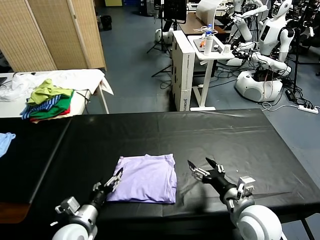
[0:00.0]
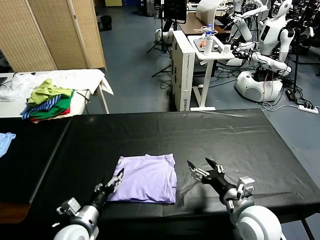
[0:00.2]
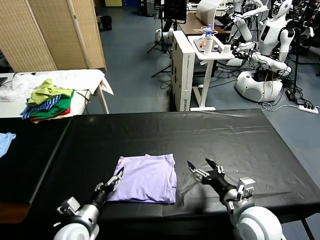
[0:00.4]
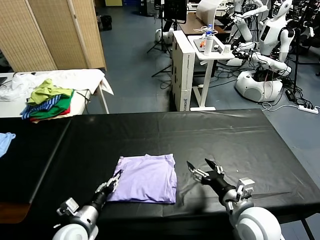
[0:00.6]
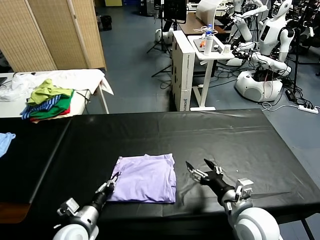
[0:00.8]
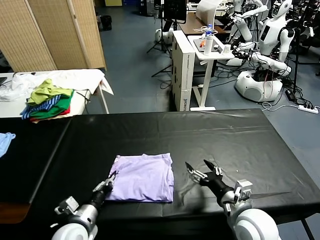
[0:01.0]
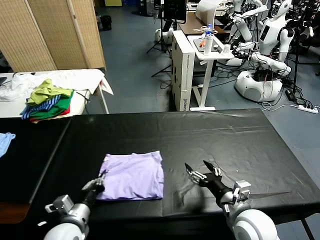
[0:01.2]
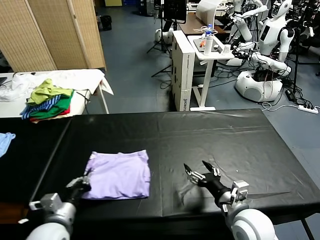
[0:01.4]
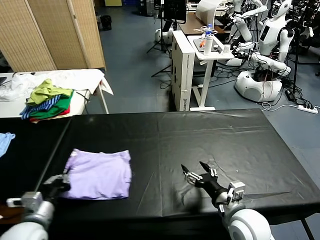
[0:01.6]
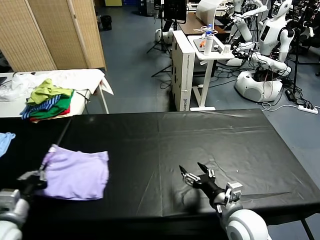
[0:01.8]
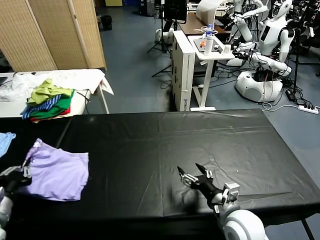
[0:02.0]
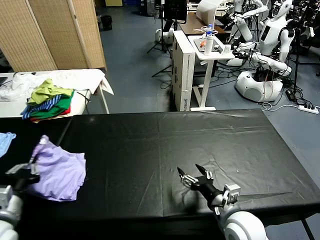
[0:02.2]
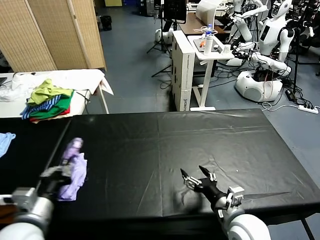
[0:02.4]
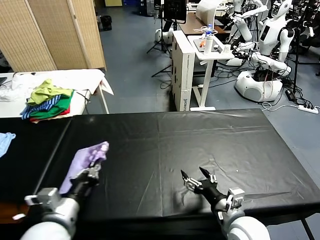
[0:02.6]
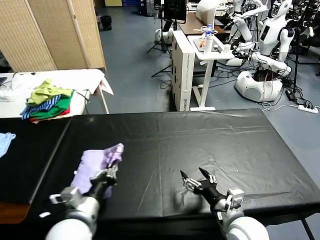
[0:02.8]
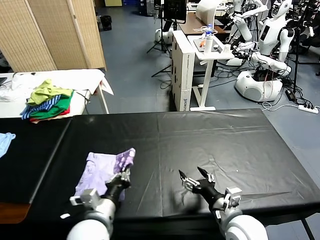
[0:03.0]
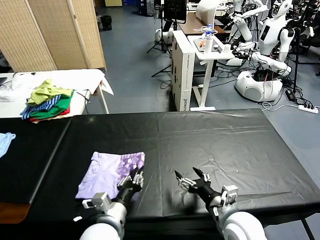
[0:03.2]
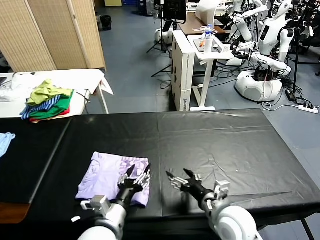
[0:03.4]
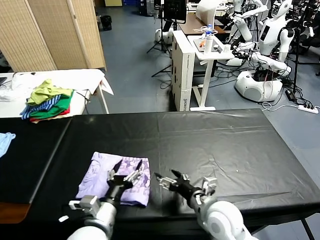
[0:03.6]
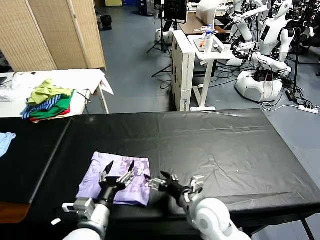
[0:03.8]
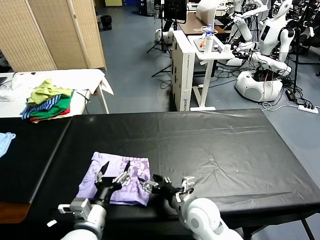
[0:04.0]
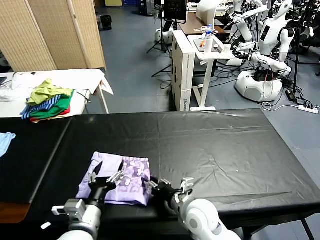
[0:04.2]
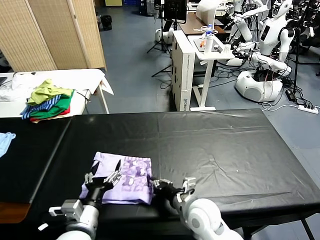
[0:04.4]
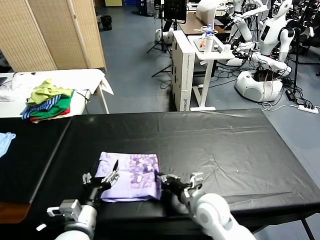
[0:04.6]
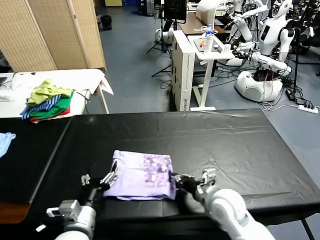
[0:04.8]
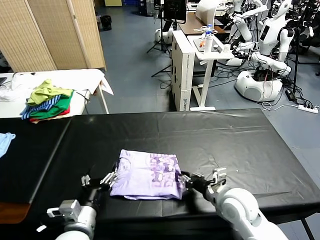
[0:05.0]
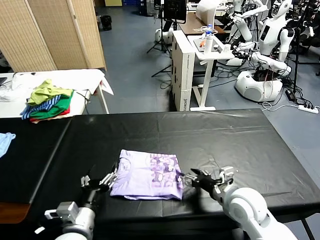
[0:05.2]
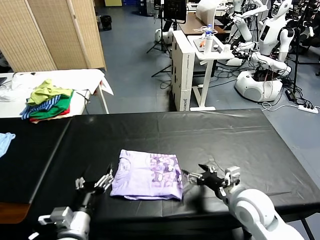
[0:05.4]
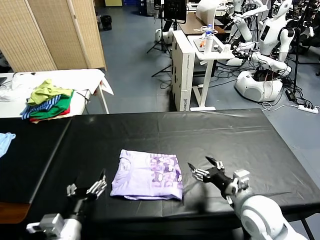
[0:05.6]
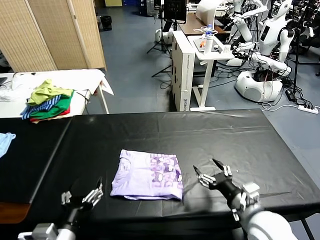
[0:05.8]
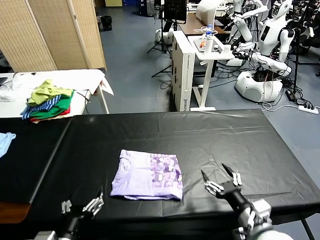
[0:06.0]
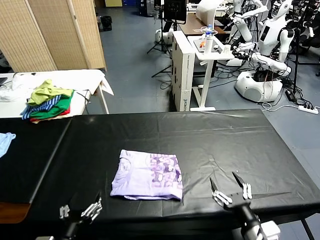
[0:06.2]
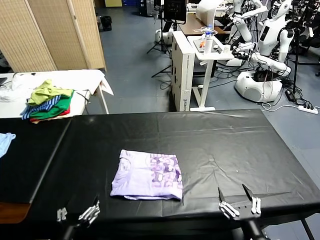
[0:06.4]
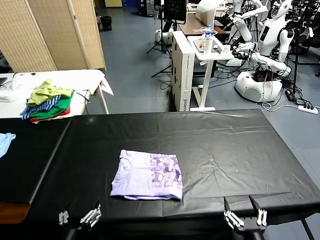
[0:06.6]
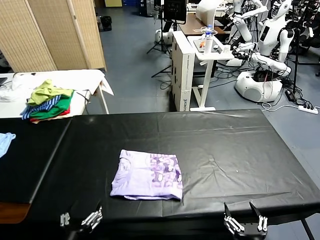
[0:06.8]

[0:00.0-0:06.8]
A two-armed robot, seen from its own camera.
Task of the whole recording: fold and organize the clothes.
Step, 0:00.0 to 0:03.2: Flip the folded clothes over with left gripper.
Step, 0:03.4 to 0:05.0: Drag the clothes to the center of the table.
0:00.0 to 0:01.4: The left gripper moves approximately 5 cm, and closes.
0:01.4 to 0:02.8: The left gripper is displaced to the right and upward by some 10 cm.
0:02.8 to 0:04.0: The right gripper moves to the left and forward, some 10 cm. The left gripper opens up.
0:04.0 to 0:05.4: The right gripper moves to the right and upward, about 15 cm, and closes and opens again.
0:05.4 to 0:06.8: The right gripper heads backward, covering approximately 20 cm. The left gripper moves backward, about 10 cm.
